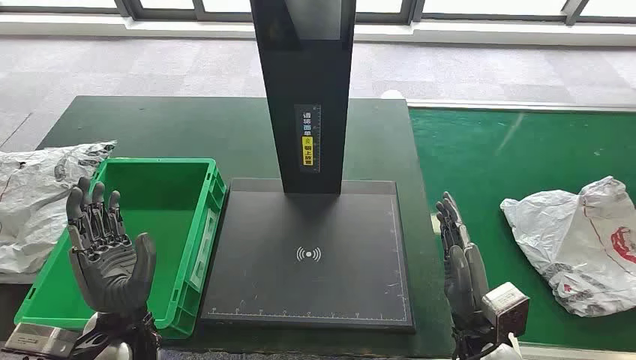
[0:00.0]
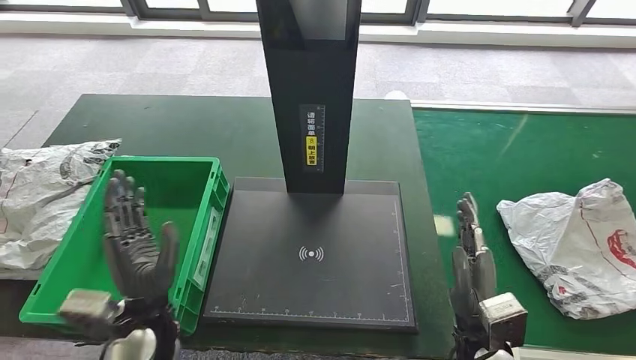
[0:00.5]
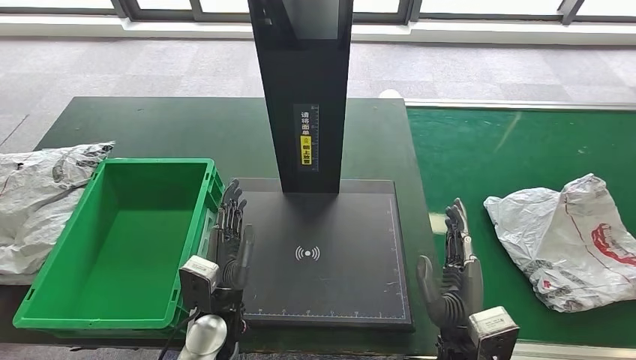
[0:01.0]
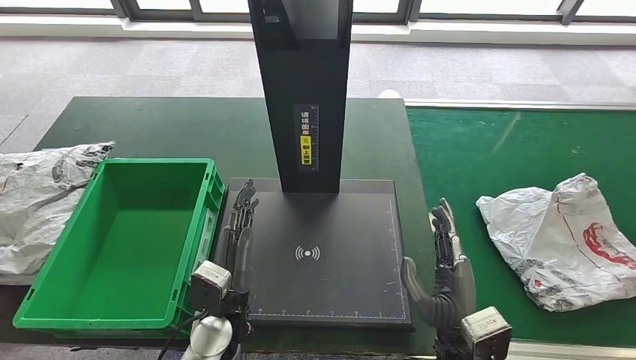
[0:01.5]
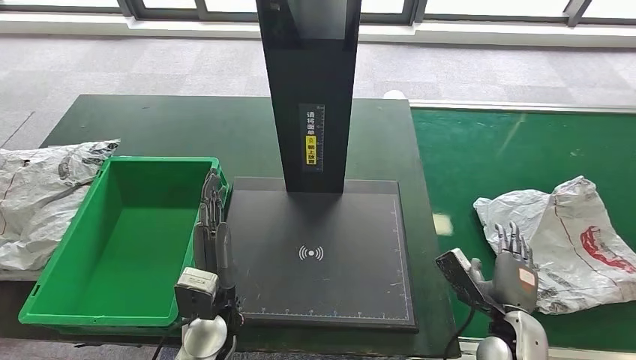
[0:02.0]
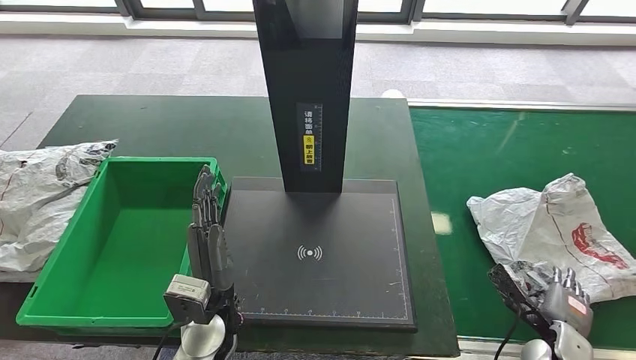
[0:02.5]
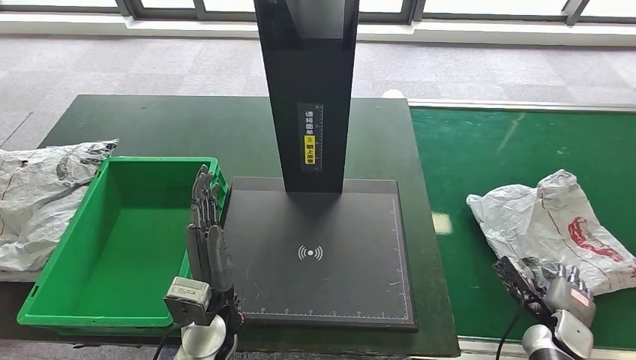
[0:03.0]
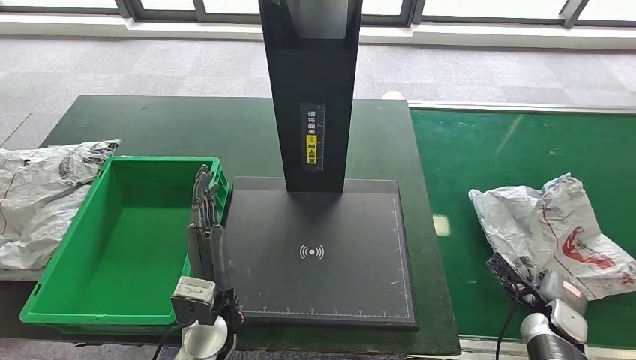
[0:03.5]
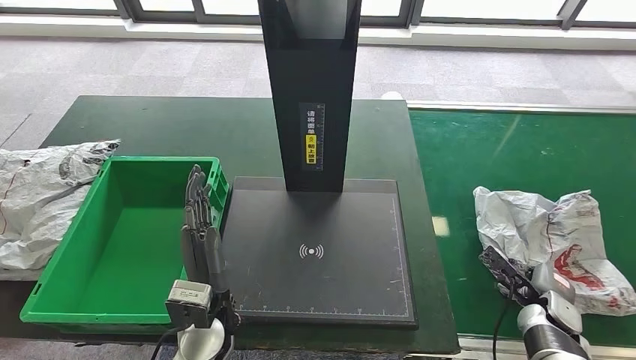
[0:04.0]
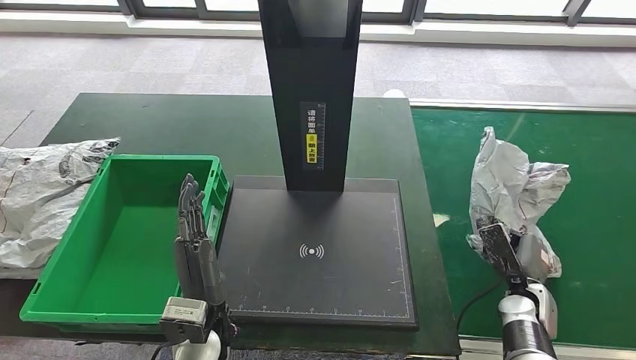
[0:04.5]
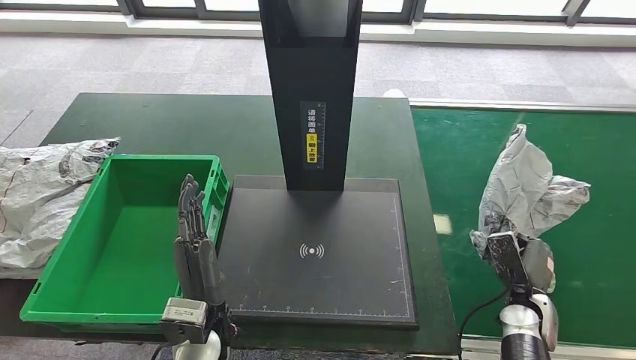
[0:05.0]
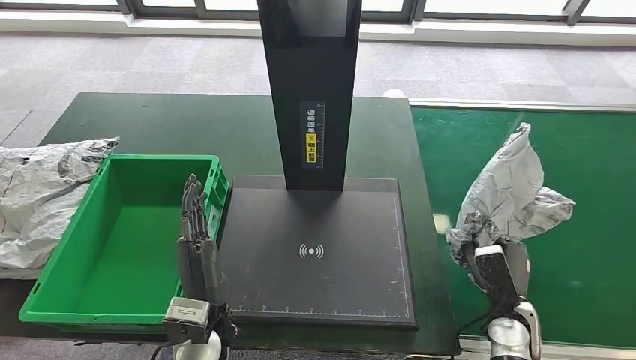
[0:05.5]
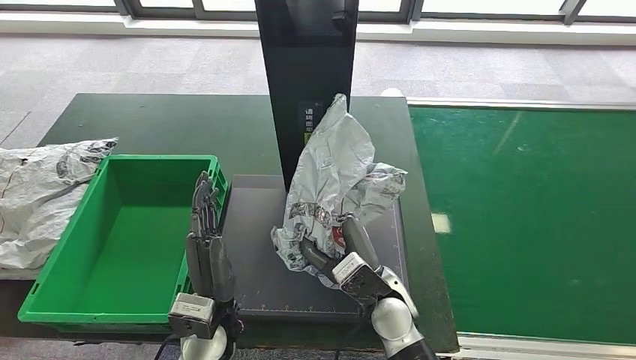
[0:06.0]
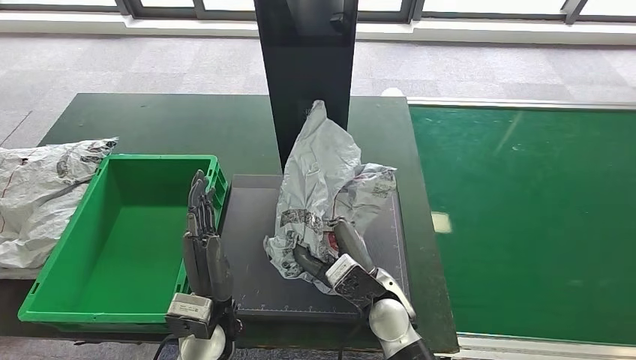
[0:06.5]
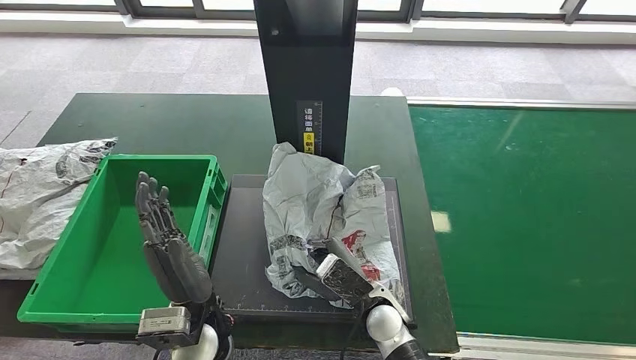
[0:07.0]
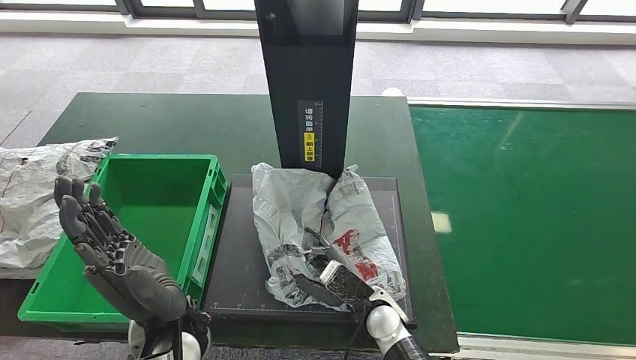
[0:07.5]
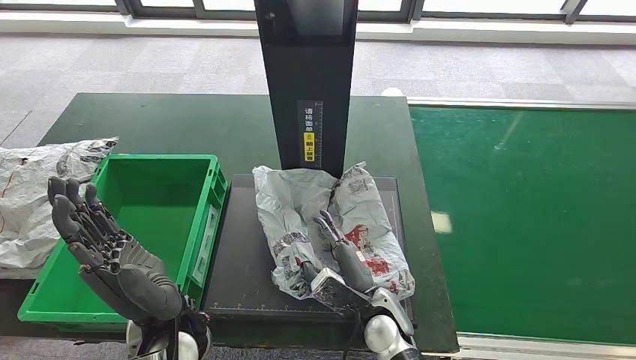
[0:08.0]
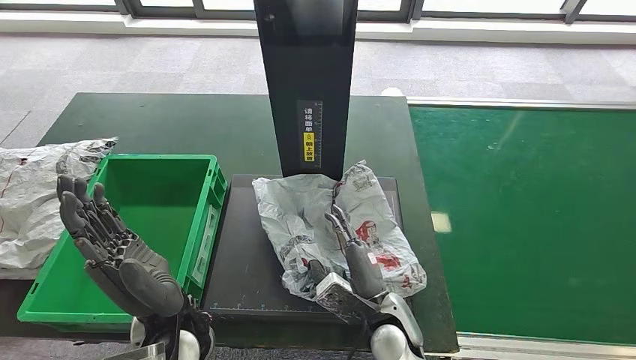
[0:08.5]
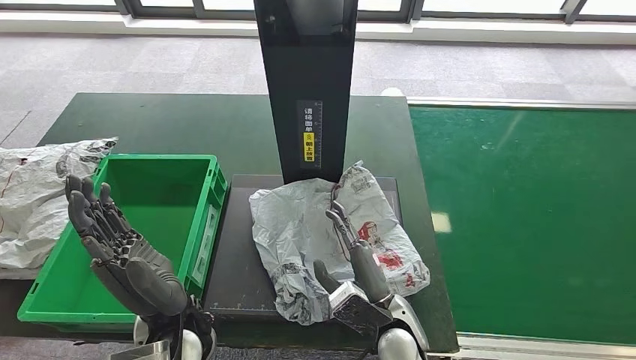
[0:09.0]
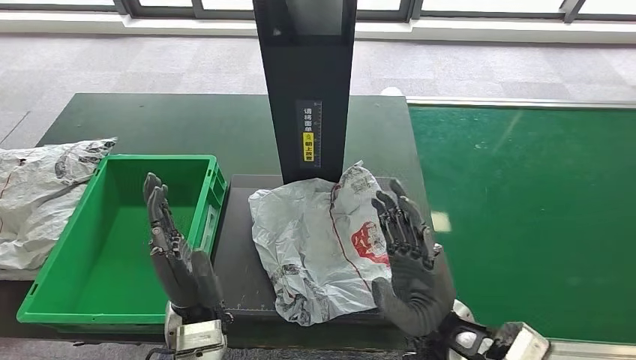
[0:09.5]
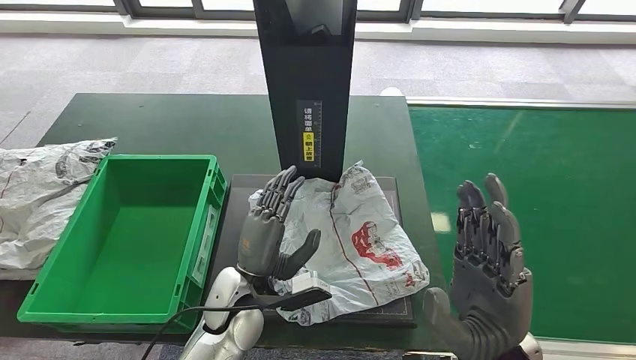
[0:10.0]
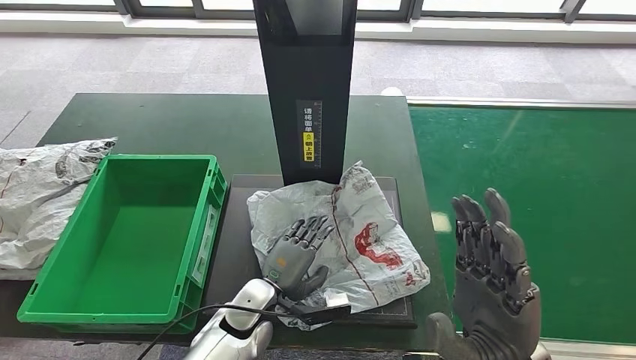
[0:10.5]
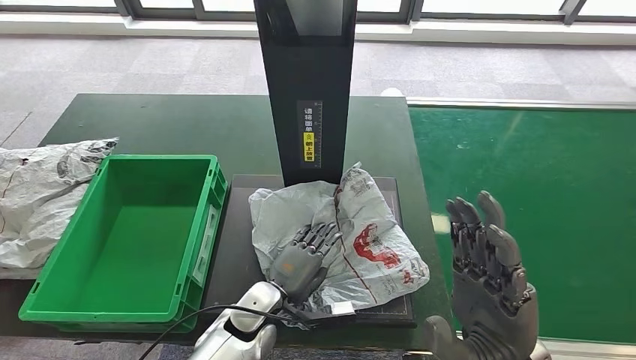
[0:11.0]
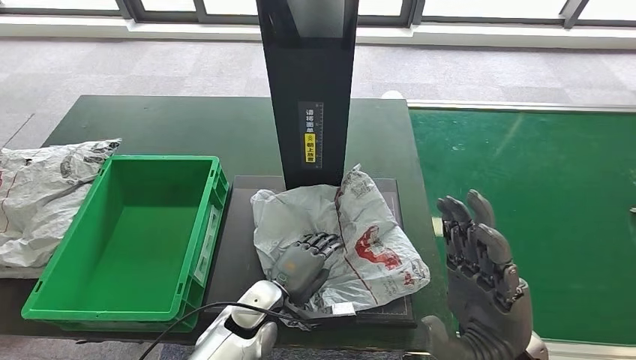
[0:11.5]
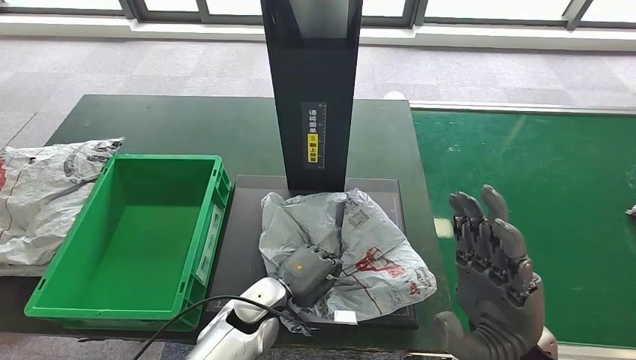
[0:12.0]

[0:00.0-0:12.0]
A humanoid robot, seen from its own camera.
Step, 0:00.0 to 0:04.5: Take the parcel off the conveyor belt.
Step, 0:05.0 to 0:09.5: Place the parcel onto the inbound machine.
0:02.0 to 0:04.0: The right hand moves to the right, downward and forward, about 15 cm.
0:06.0 to 0:08.0: The left hand heads upward, covering roughly 5 cm; the right hand travels downward by some 5 cm.
0:08.0 to 0:10.0: The right hand heads upward and to the right, covering approximately 20 cm. The left hand heads downward and forward, covering roughly 10 cm.

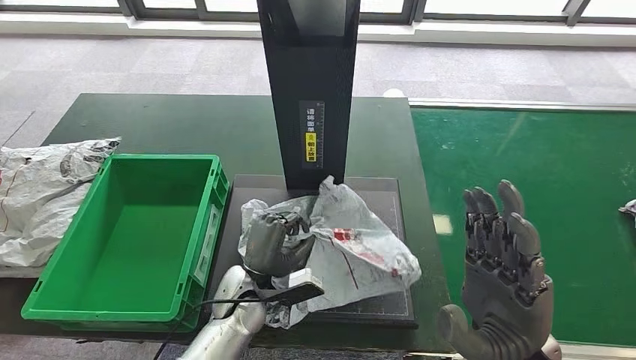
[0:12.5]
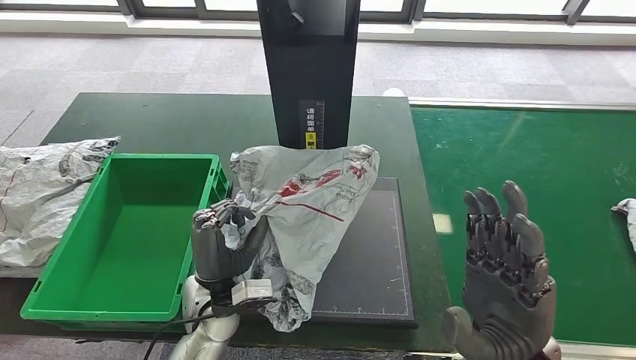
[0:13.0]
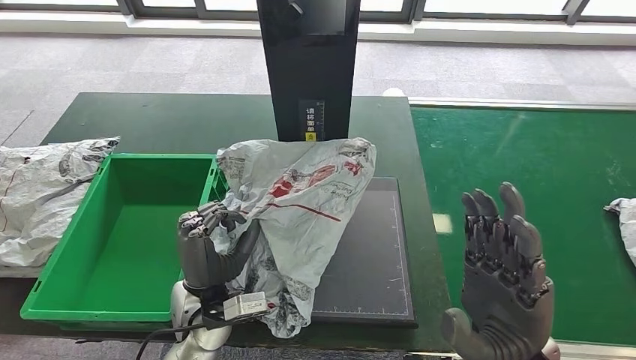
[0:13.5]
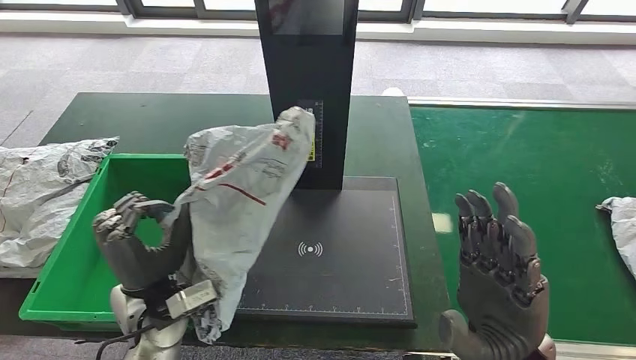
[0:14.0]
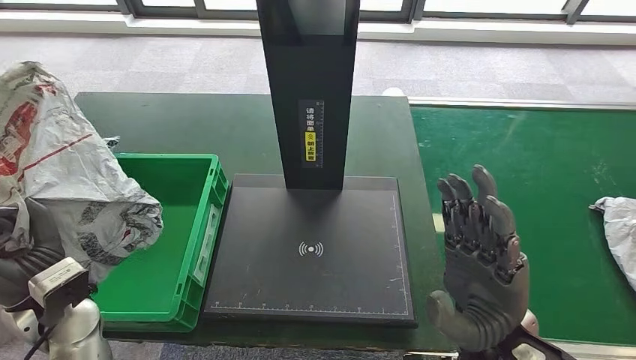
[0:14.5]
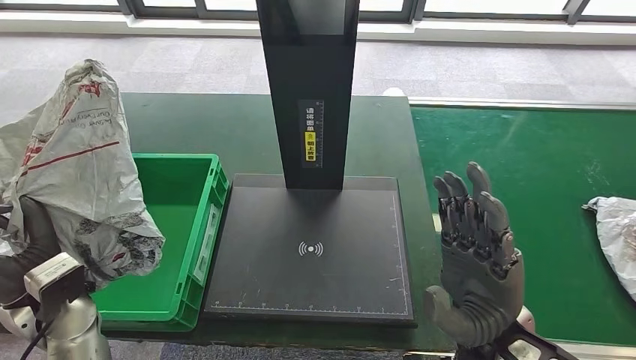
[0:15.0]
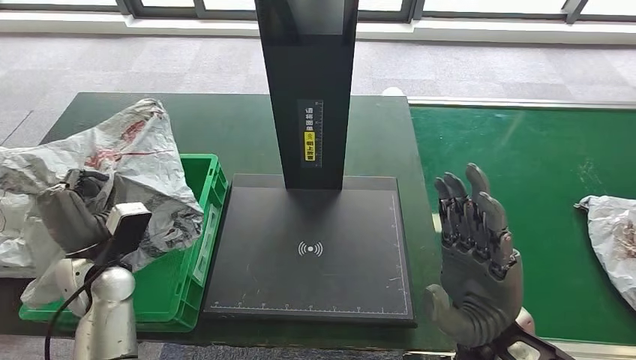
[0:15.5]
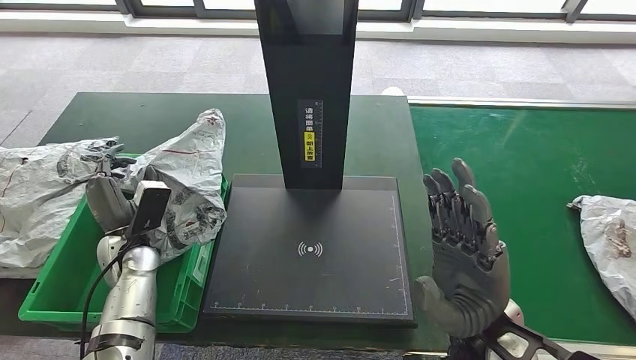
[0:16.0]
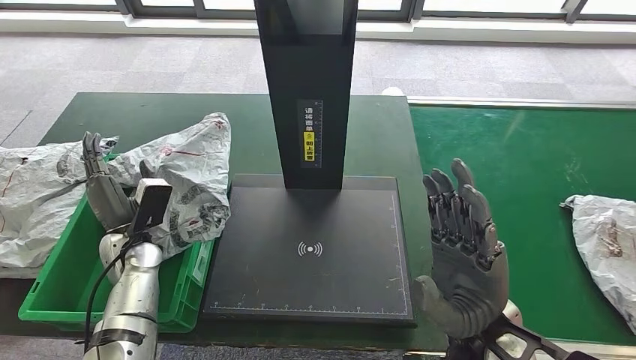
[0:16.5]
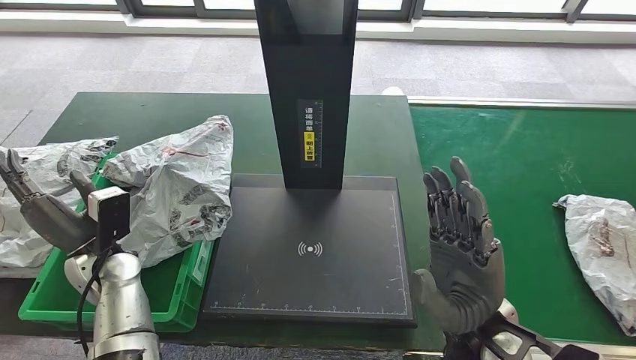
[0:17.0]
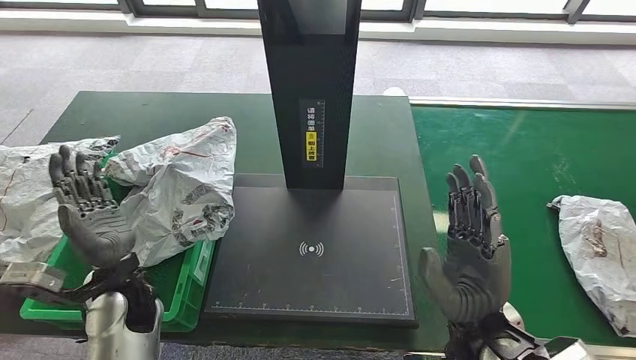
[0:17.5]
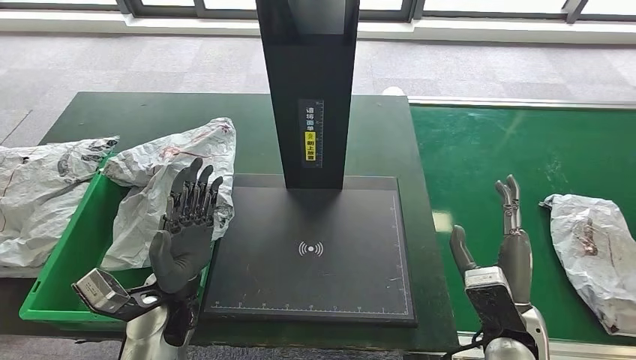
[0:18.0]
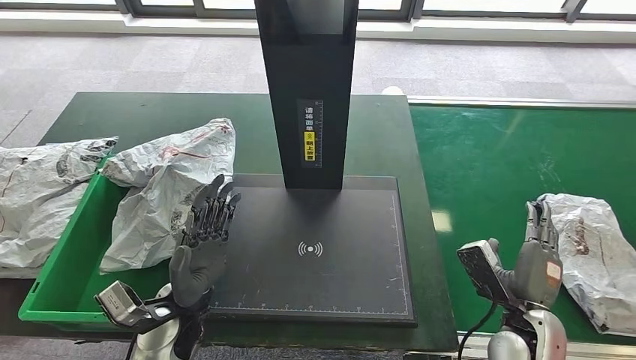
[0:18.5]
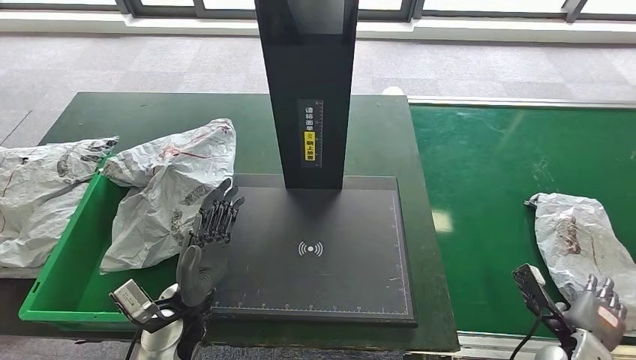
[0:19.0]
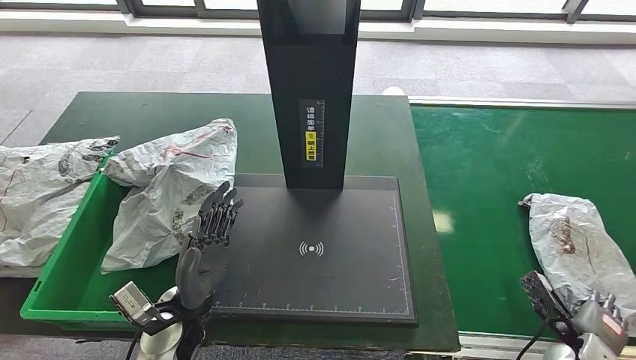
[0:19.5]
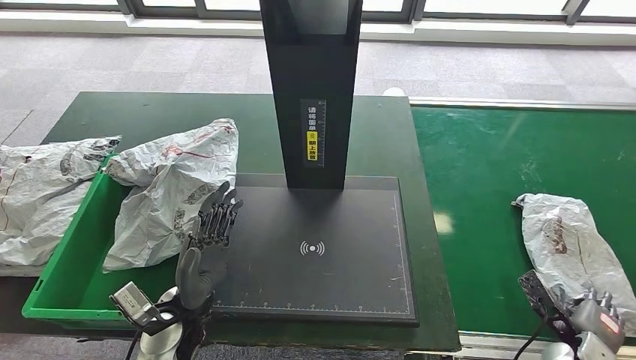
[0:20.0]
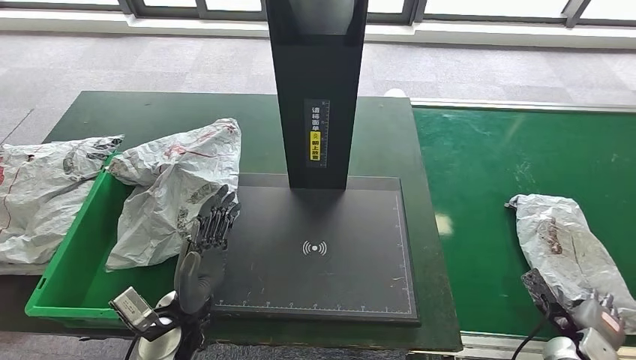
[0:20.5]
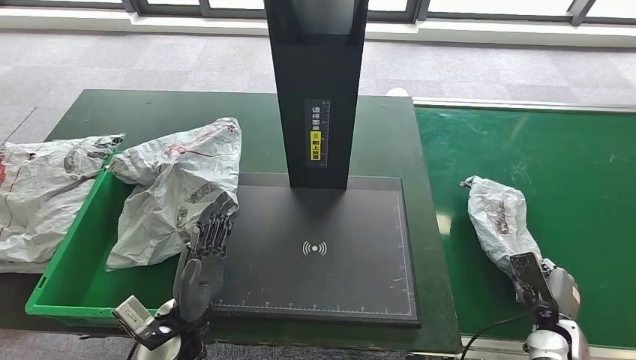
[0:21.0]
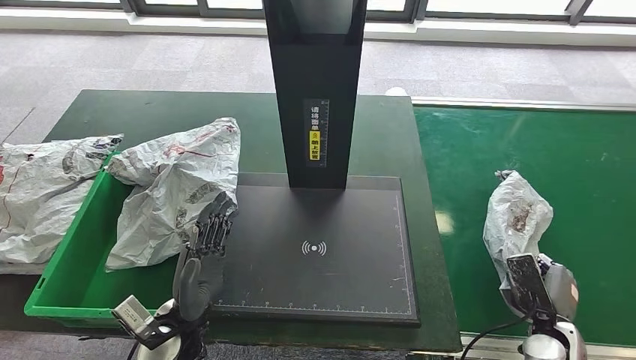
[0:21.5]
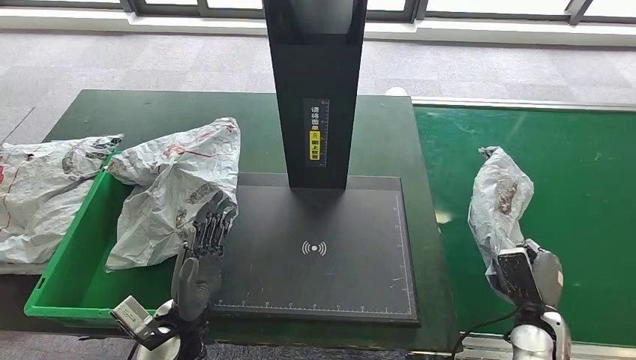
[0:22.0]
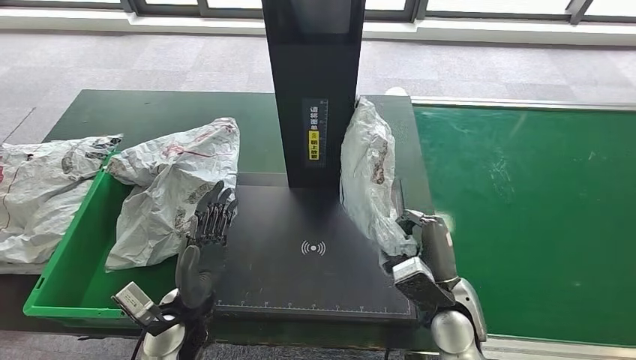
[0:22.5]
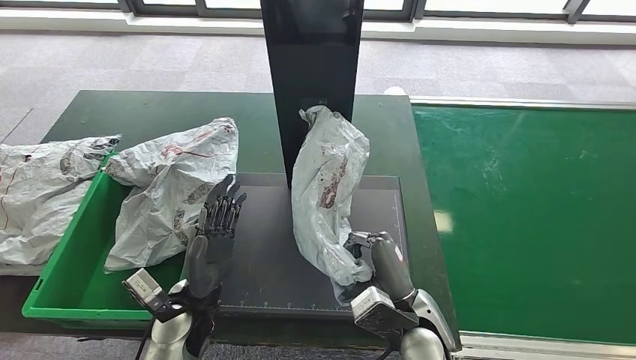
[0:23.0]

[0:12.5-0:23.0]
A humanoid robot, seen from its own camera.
Step, 0:13.5 to 0:17.0: Put the parcel inside the courier box.
Step, 0:17.5 to 0:21.0: Pick up the parcel from the conveyor belt.
0:16.5 to 0:19.0: The right hand is displaced to the right and downward by some 30 cm; the left hand moves to the right and backward, approximately 15 cm.
